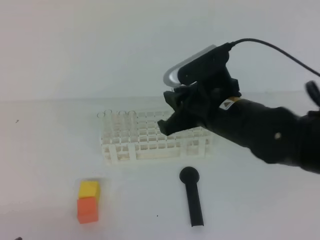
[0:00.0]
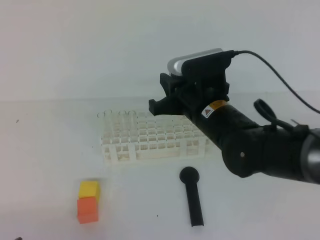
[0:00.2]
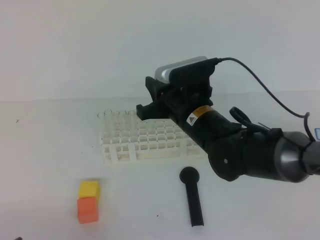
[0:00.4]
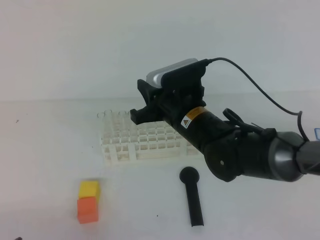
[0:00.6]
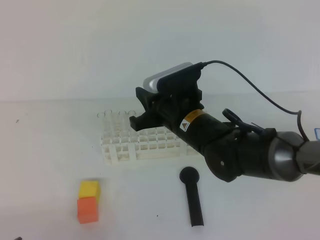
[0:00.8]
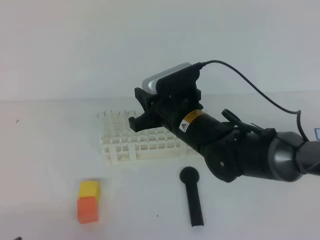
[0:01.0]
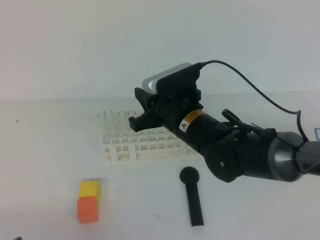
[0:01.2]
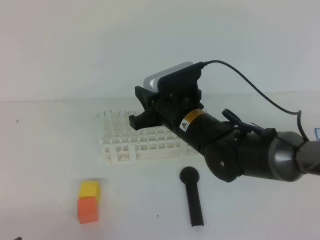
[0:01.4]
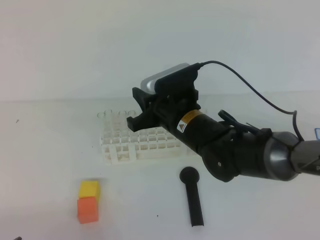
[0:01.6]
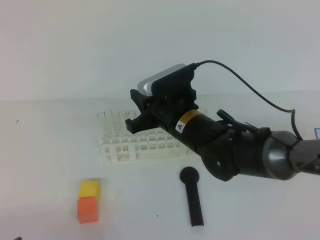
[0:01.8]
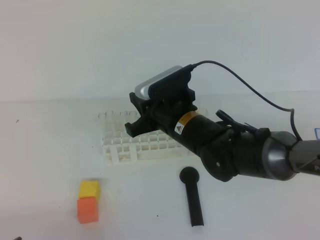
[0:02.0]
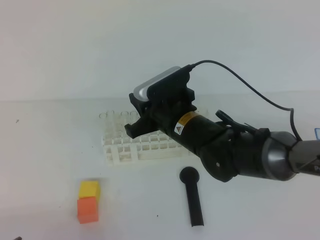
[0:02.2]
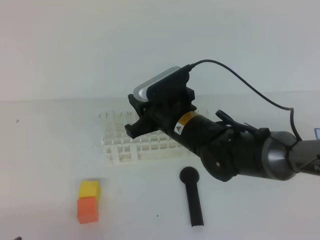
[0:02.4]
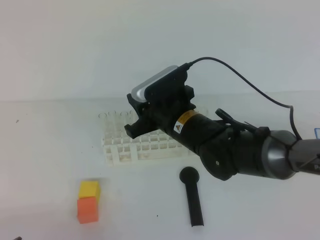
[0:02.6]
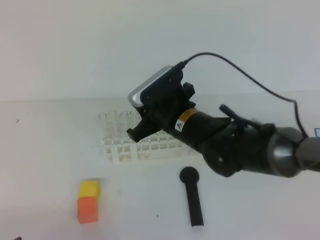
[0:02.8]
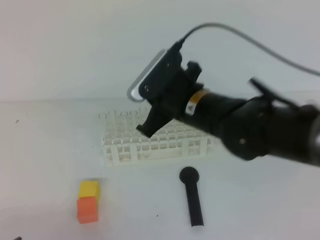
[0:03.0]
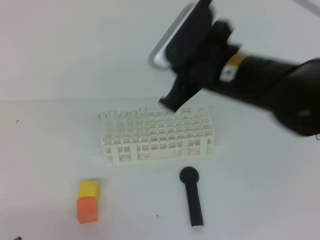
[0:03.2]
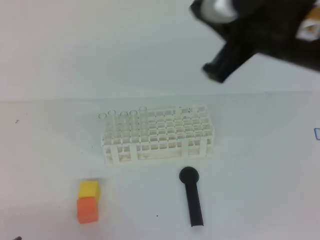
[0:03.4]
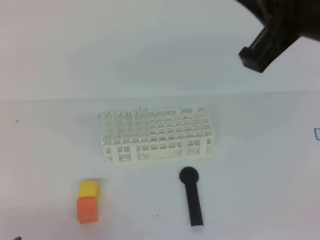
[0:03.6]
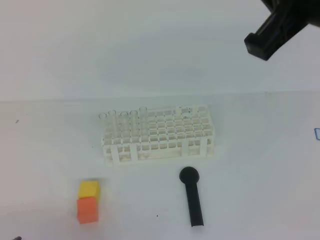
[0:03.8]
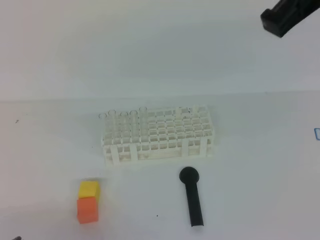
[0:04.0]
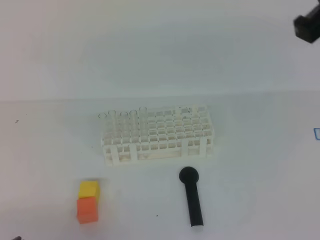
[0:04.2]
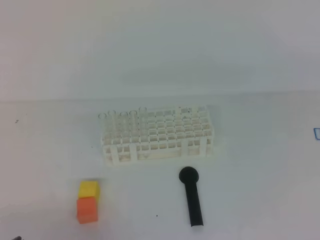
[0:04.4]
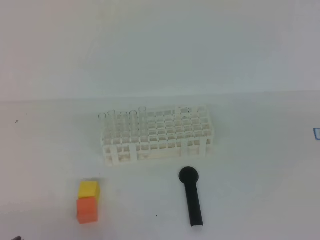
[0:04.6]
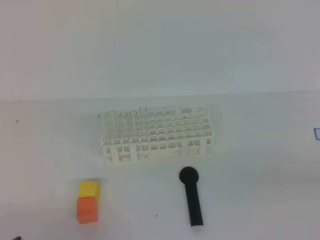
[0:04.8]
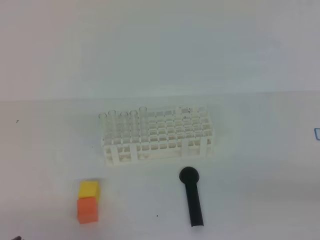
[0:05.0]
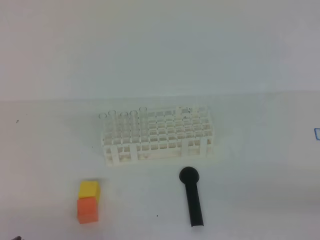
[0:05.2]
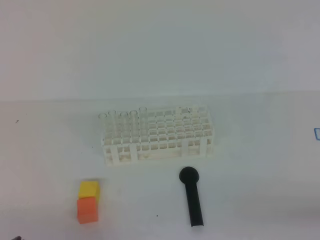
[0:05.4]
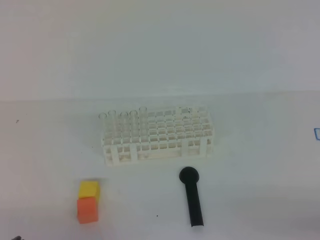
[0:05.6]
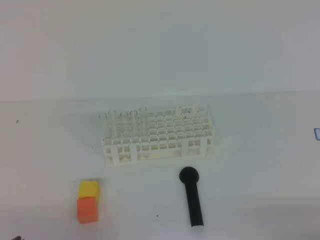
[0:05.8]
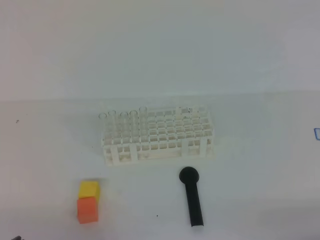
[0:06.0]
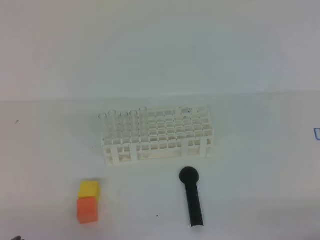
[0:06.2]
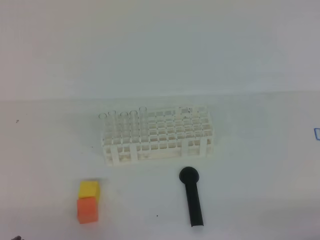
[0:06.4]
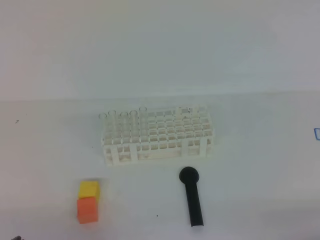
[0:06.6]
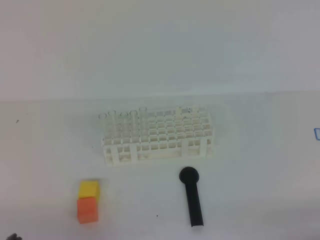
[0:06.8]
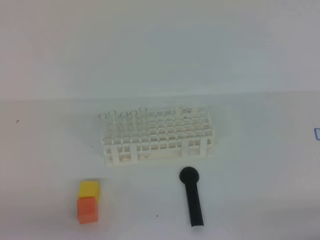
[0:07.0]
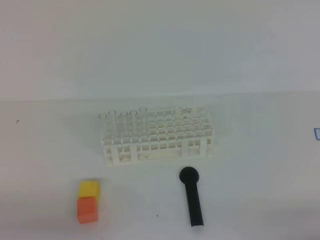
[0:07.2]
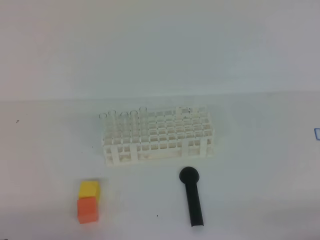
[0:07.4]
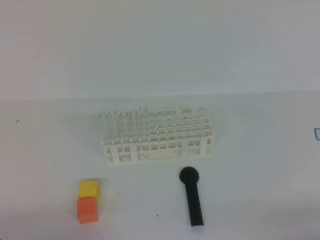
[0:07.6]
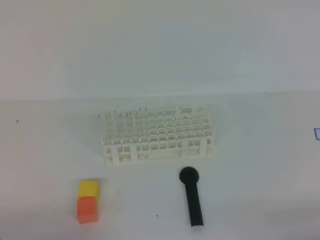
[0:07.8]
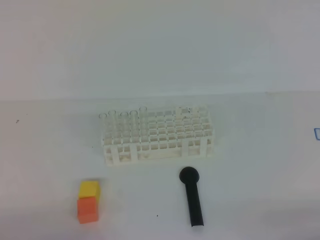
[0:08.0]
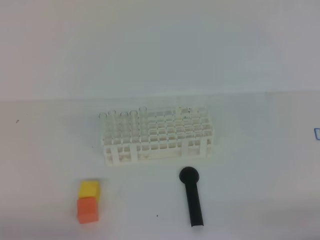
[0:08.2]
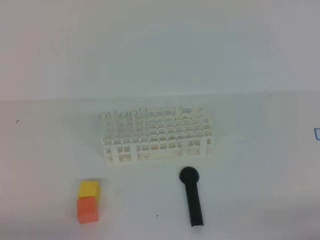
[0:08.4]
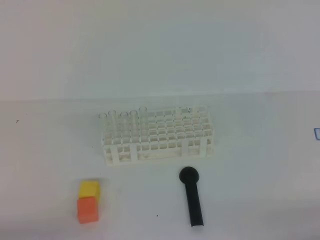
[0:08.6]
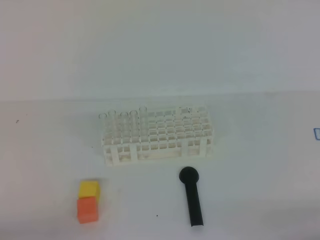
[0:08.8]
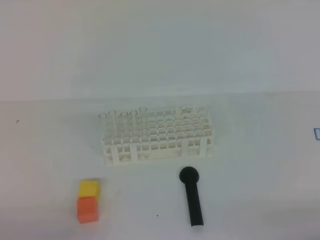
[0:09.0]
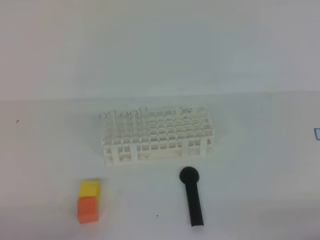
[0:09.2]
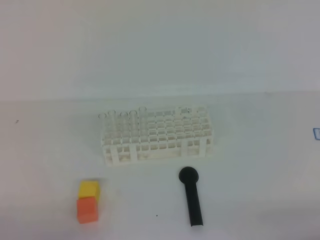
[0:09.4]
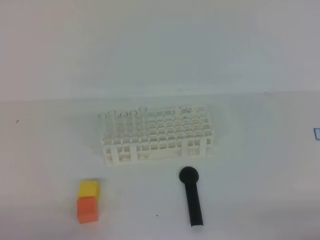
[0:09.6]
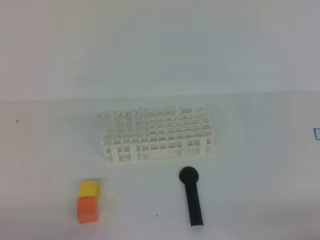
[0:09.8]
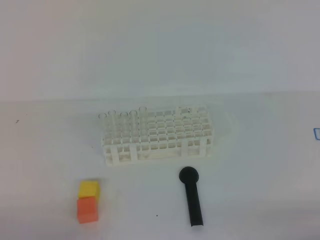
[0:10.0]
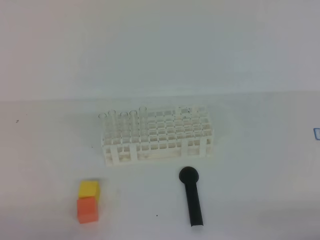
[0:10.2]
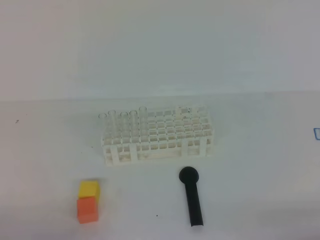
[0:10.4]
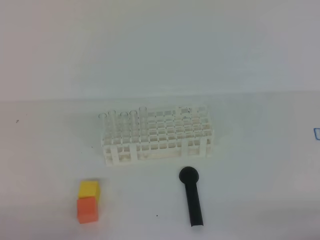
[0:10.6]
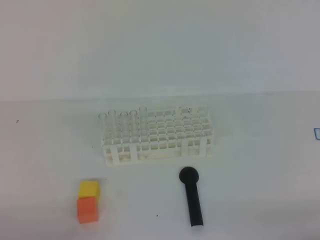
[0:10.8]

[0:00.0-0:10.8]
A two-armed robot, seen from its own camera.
0:00.0 to 0:01.6: The right gripper travels to the left and downward by some 10 cm.
0:01.6 to 0:03.0: The right gripper is displaced upward by roughly 5 cm.
0:03.0 to 0:04.6: The right gripper goes approximately 30 cm to the right and backward.
0:09.2 to 0:10.8: Both grippers stay put.
